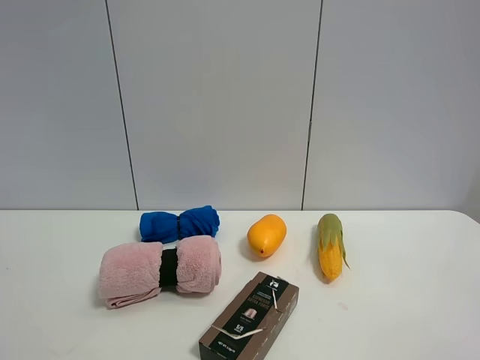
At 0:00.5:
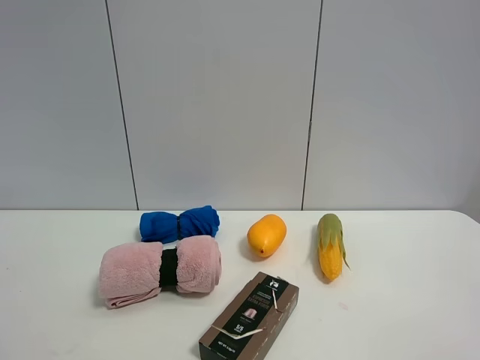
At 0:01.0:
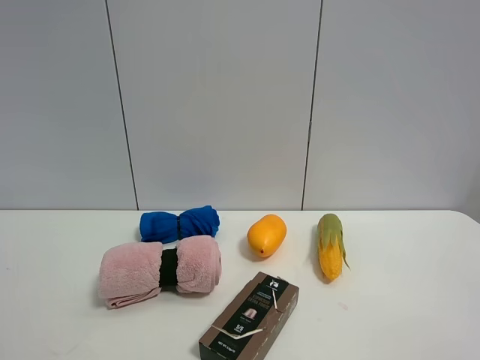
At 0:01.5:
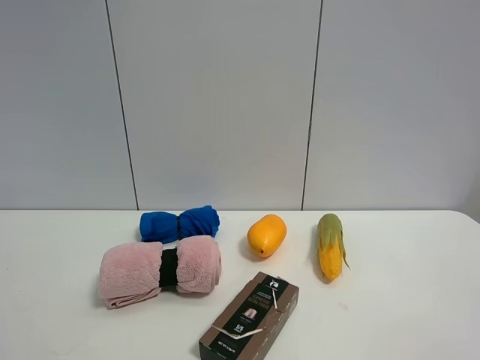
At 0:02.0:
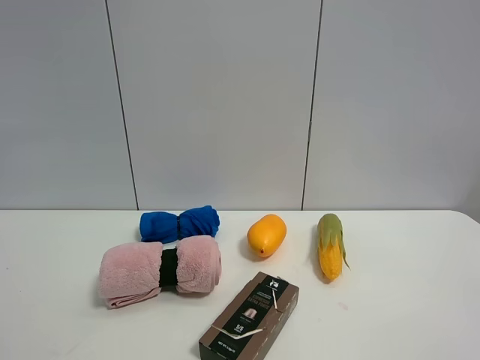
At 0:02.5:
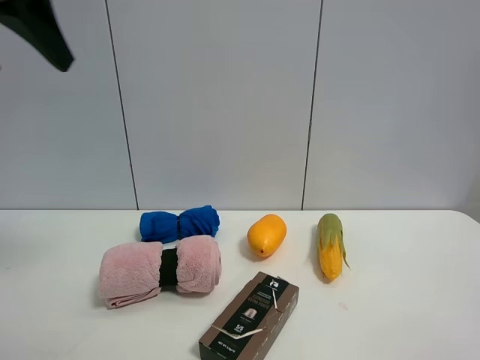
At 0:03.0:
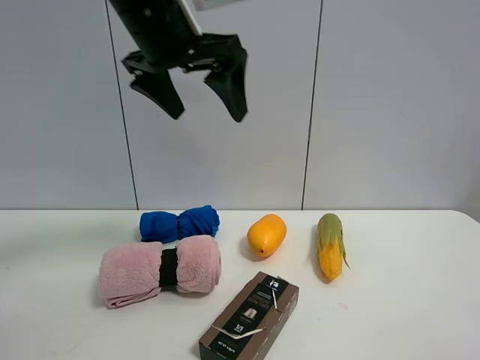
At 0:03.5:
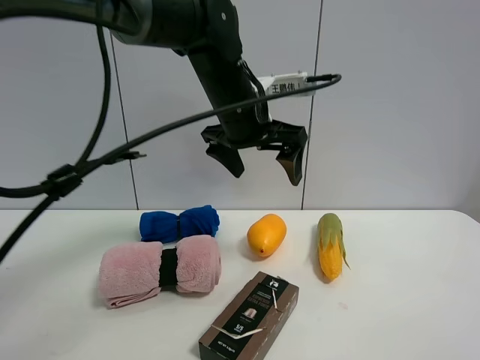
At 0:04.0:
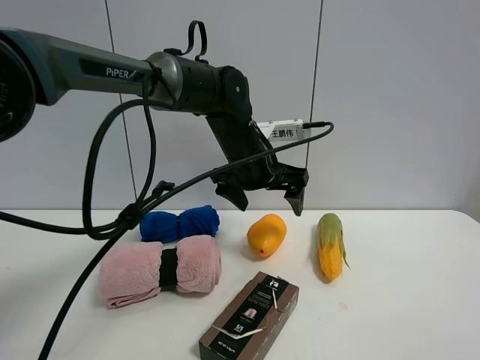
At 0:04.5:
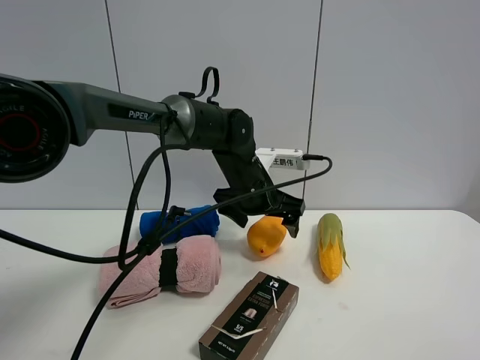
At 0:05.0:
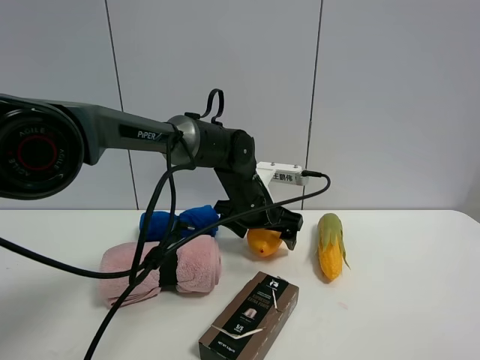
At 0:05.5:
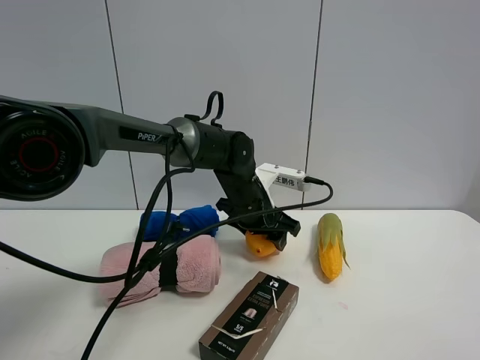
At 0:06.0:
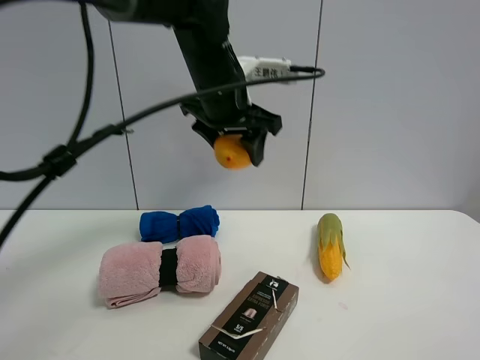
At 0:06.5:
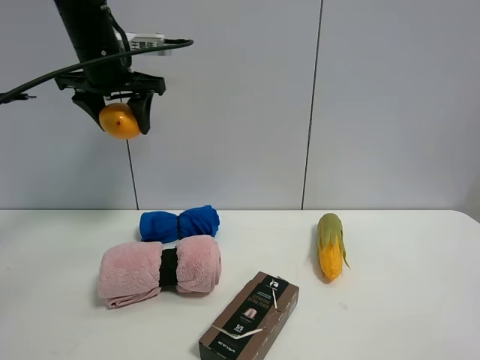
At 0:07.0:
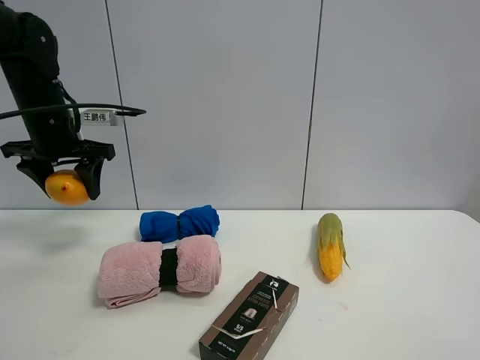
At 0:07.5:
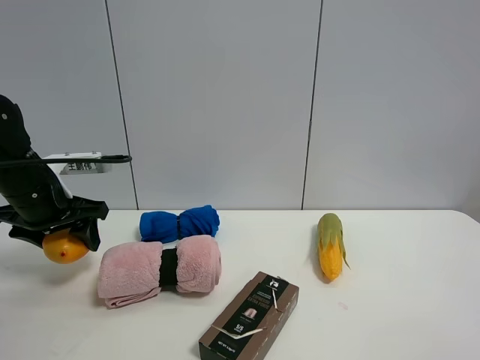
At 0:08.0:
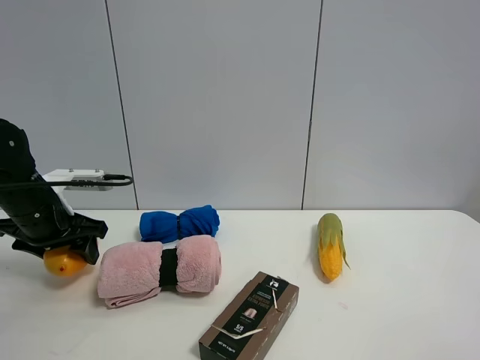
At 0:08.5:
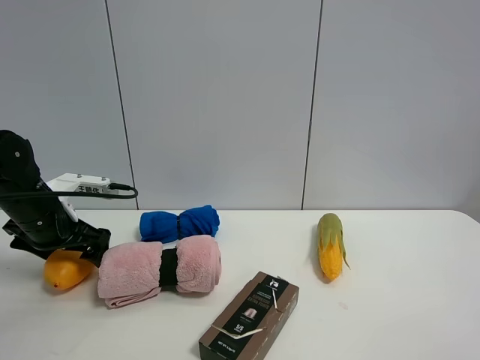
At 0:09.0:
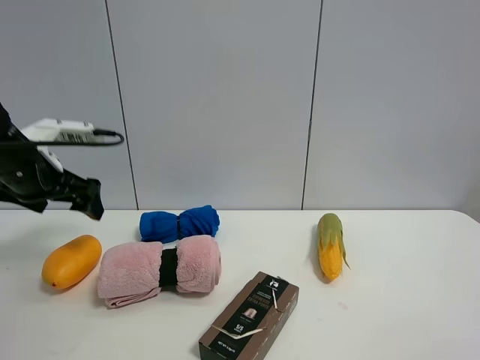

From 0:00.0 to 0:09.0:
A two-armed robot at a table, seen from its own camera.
Task of the whole recording: the gripper move the object.
Step, from 0:00.0 to 0:05.0: Grasp the mango with the left gripper.
Step, from 0:05.5 to 0:09.0: Place the mango on the table with the left gripper.
From 0:02.0 to 0:04.5: The left gripper is displaced forward, to the right and downward by roughly 50 cm.
From 0:04.5 to 0:07.0: The left gripper moves to the left, roughly 30 cm, and closes up.
From 0:07.0 to 0:09.0: The left gripper shifts some 5 cm backward, travels downward and back again, about 10 cm each way, and opens up.

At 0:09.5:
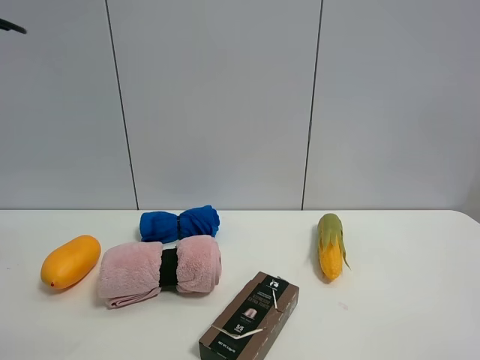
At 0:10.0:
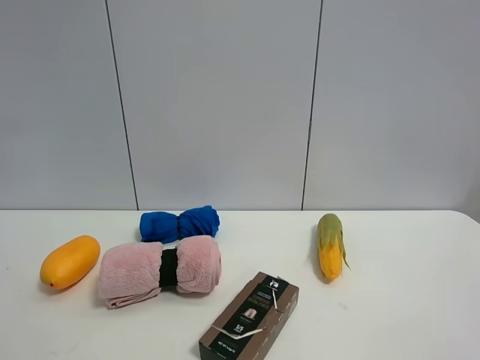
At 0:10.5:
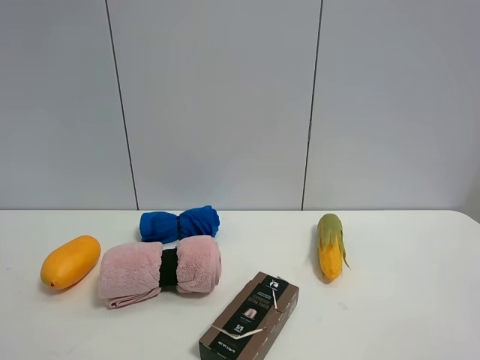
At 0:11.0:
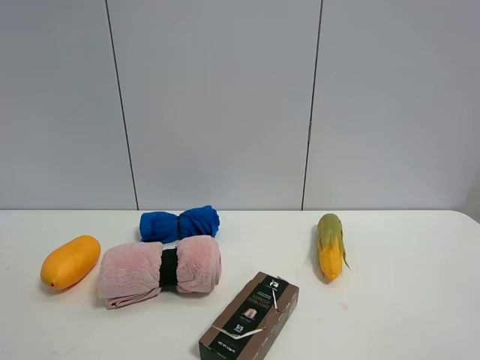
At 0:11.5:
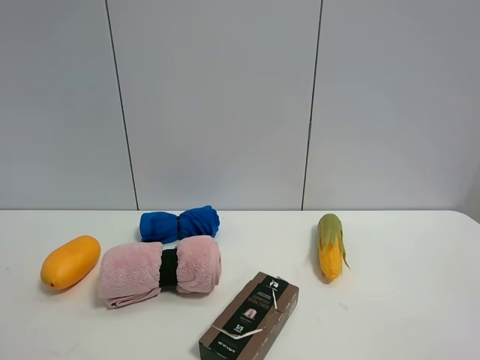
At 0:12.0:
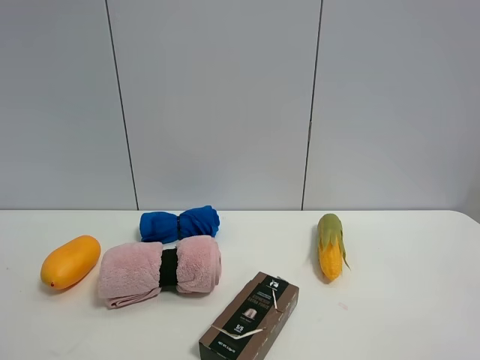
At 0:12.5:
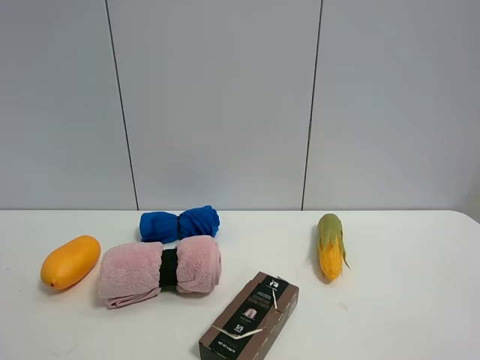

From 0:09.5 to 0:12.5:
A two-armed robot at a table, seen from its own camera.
Task of the whole recording: the gripper move the object.
From 0:11.0 to 0:12.5: Neither gripper changes place.

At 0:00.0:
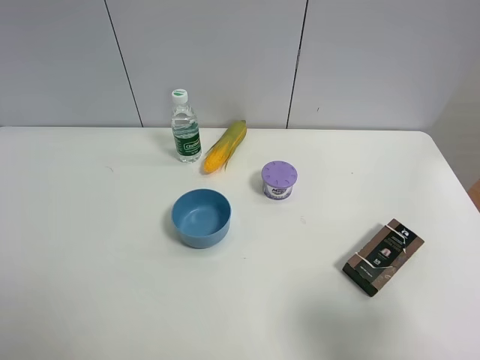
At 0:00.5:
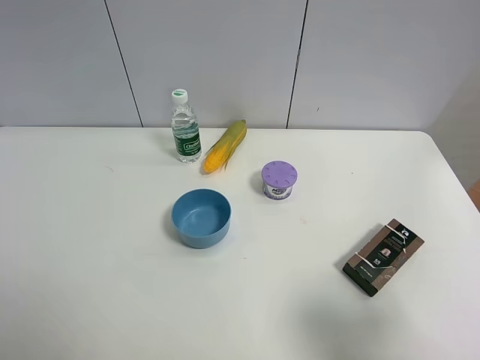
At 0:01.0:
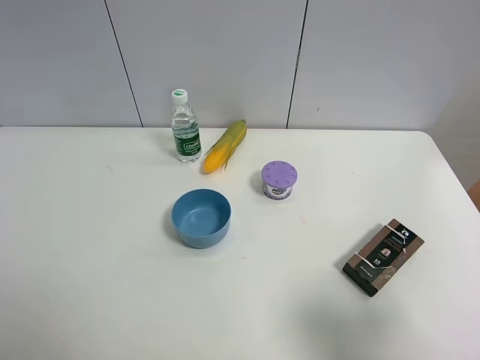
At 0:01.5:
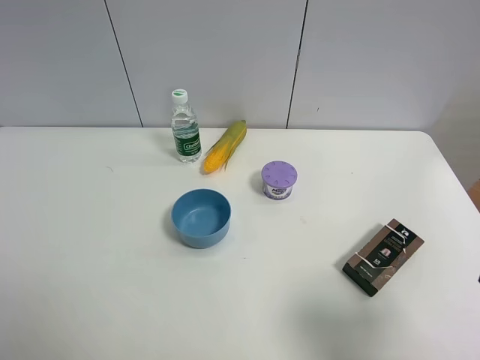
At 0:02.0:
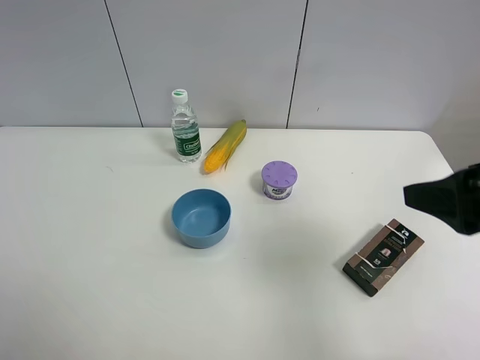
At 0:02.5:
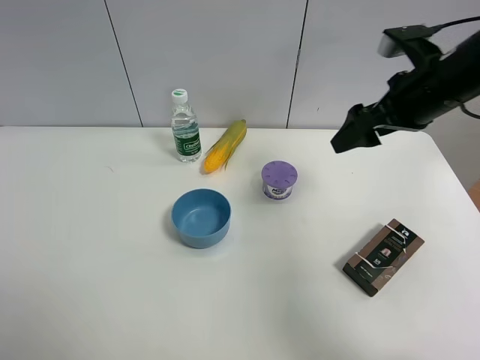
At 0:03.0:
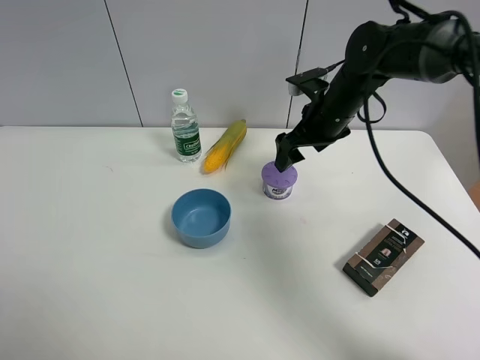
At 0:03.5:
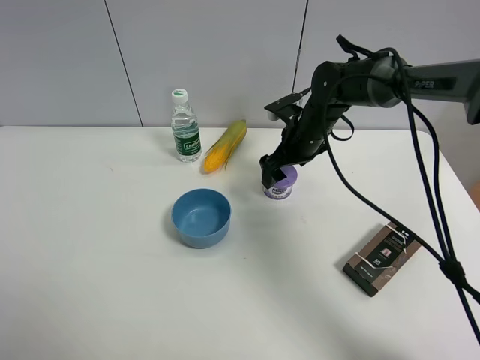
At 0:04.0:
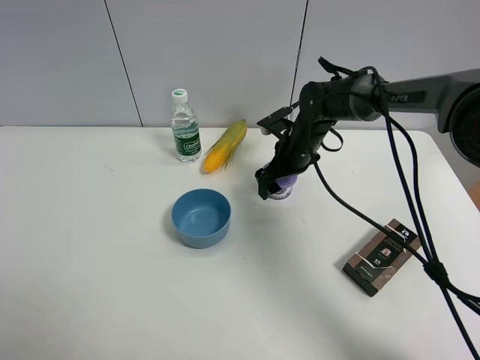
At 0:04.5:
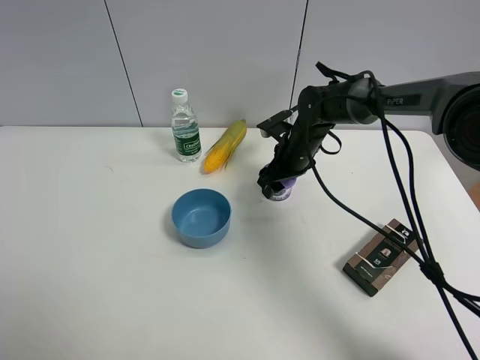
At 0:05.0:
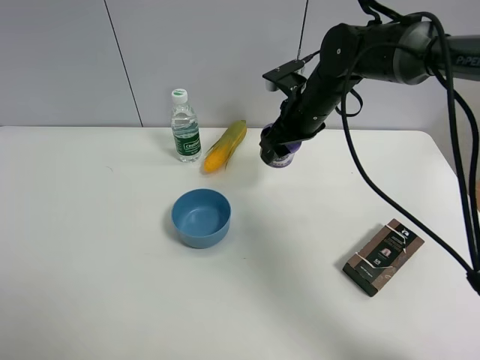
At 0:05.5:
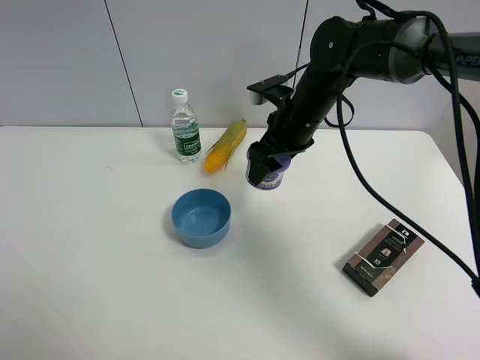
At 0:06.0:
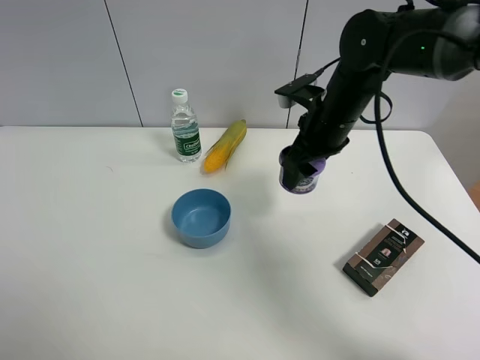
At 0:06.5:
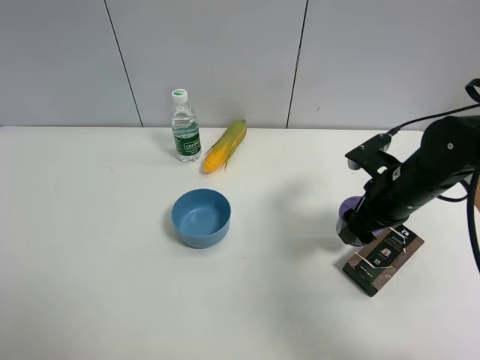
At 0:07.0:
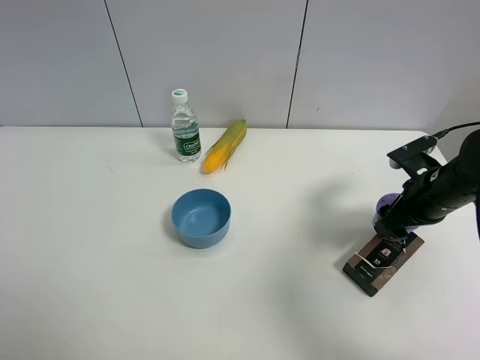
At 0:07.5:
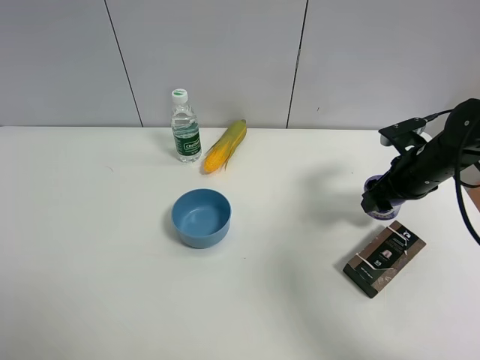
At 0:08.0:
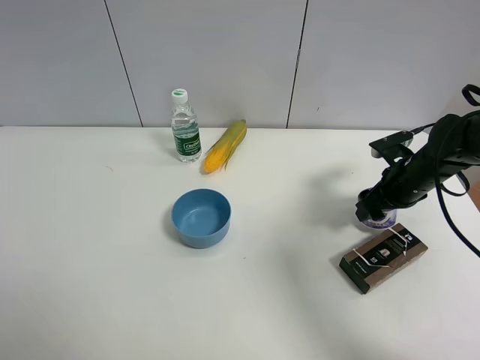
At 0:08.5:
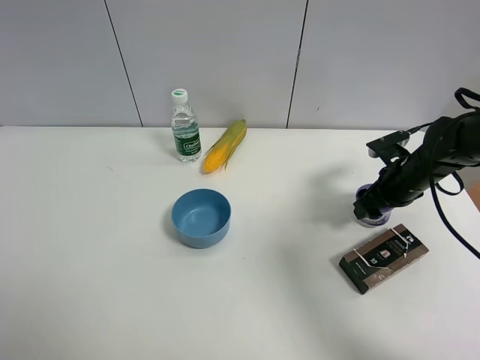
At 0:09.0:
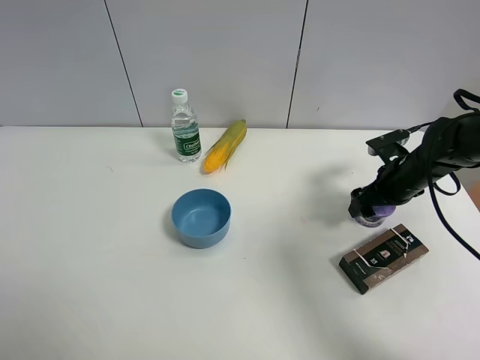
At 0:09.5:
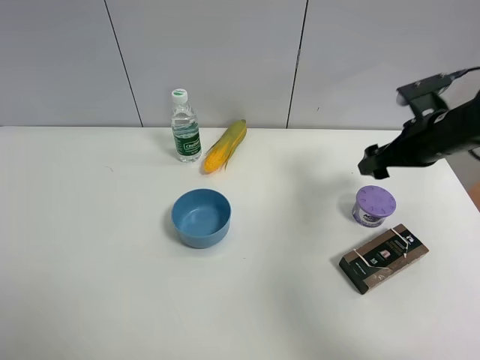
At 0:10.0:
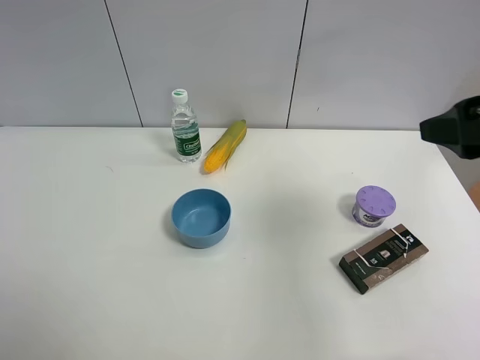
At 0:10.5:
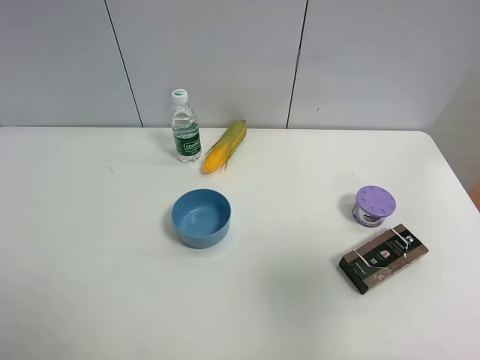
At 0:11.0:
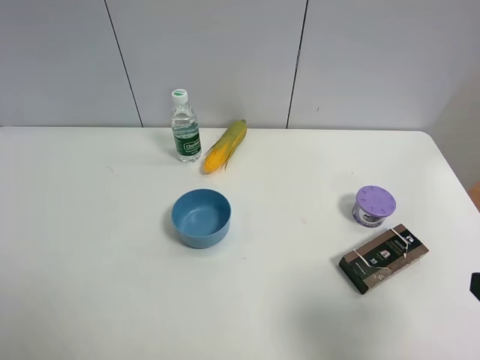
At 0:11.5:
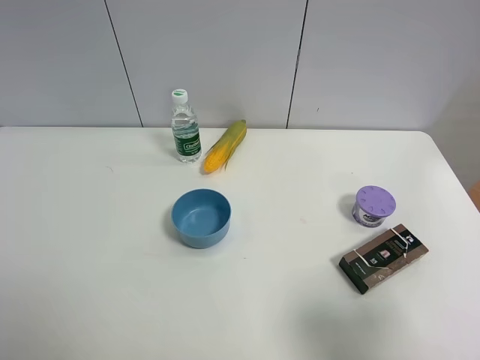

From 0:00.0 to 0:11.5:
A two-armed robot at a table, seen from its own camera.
Task of the whole recording: the gripper move the object.
Step, from 0:00.0 to 0:04.0: Grasp the Incense box with the right gripper.
Step, from 0:04.5 to 0:09.0: Place the Incense box on the table with the right gripper.
From 0:00.0 to 0:02.0: The right gripper shifts some 15 cm forward.
From 0:02.0 to 0:04.0: The right gripper goes roughly 35 cm forward, downward and to the left.
From 0:04.0 to 0:06.0: The right gripper heads upward and backward, covering some 15 cm, and closes its fingers.
From 0:06.0 to 0:07.5: The right gripper shifts some 15 cm to the right and downward.
From 0:07.5 to 0:09.5: The right gripper goes about 5 cm upward, and opens its fingers.
From 0:09.5 to 0:11.5: The right gripper is displaced backward by some 30 cm.

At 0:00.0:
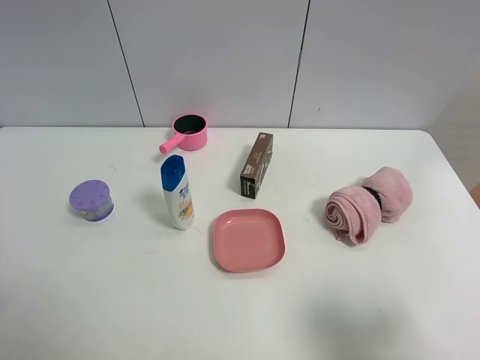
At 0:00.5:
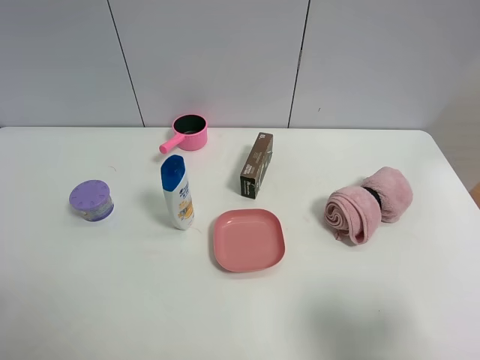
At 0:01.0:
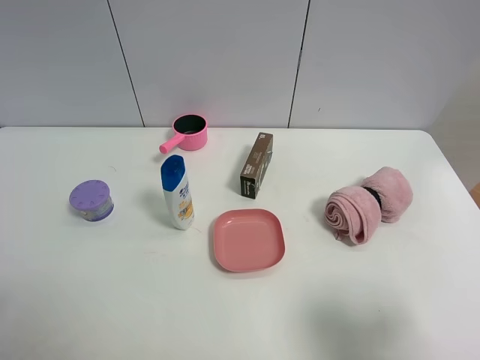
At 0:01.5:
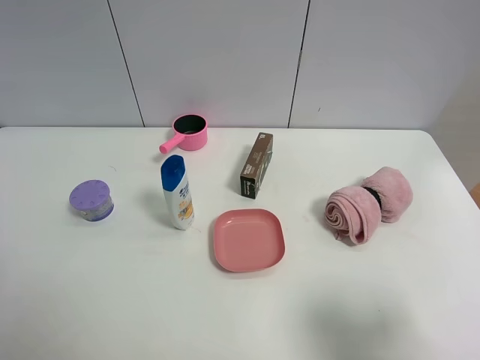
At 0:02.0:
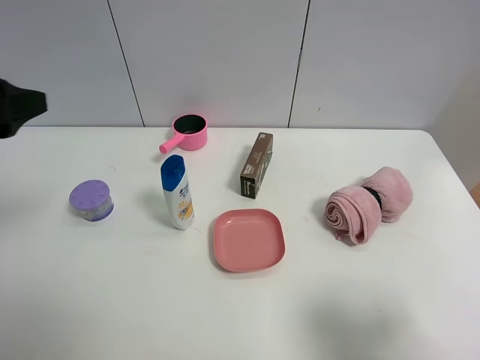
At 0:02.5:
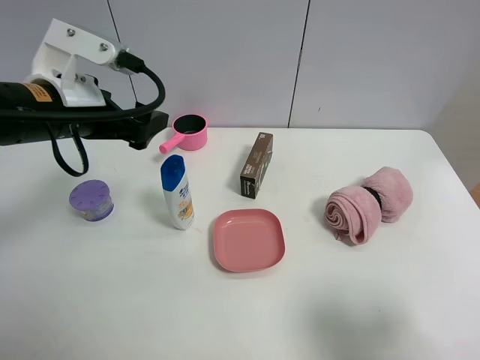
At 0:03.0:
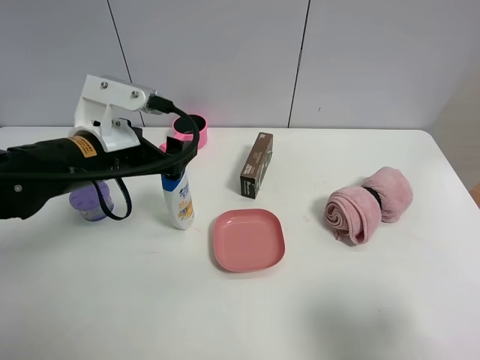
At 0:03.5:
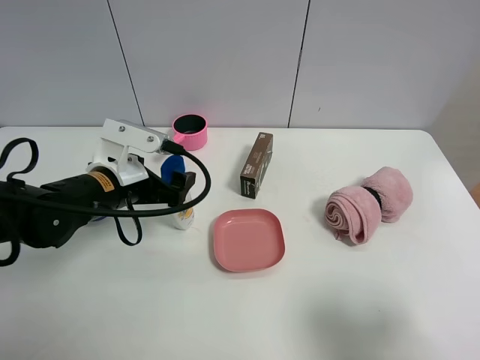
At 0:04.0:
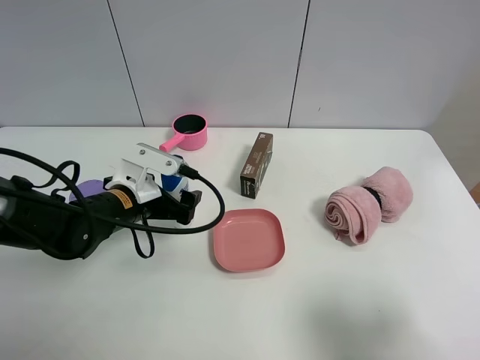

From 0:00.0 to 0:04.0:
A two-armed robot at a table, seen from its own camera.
Task of the whole recording: the gripper move the object.
From 0:00.0 to 0:02.0: The left gripper moves forward, roughly 20 cm.
From 0:02.0 to 0:04.0: The left gripper is displaced downward and to the right by about 25 cm.
